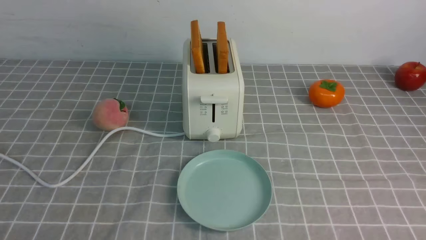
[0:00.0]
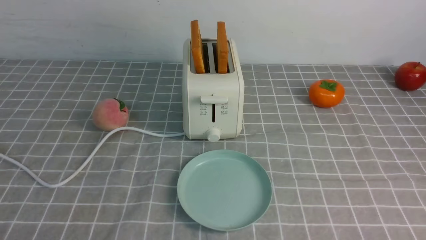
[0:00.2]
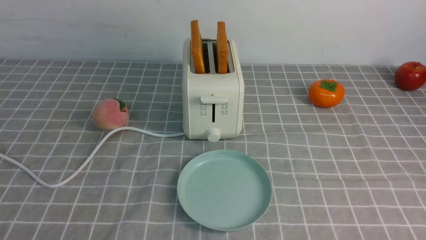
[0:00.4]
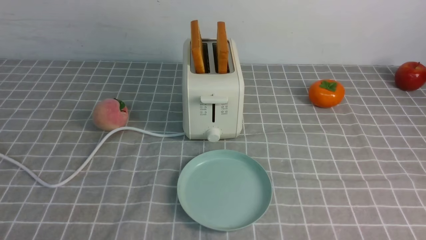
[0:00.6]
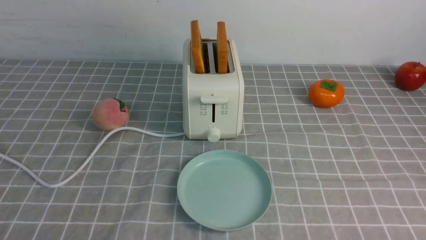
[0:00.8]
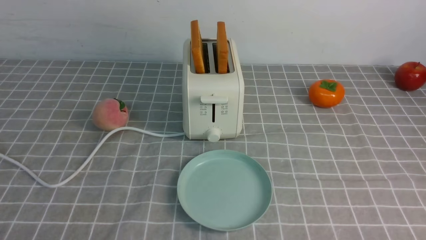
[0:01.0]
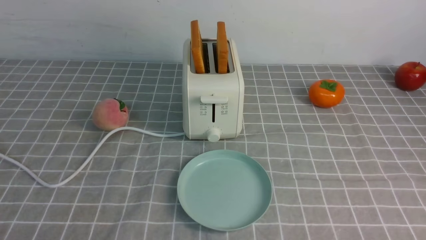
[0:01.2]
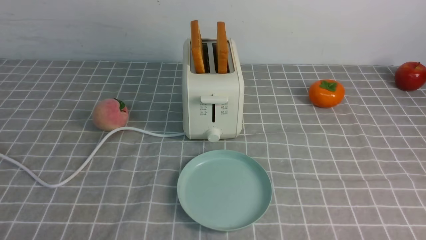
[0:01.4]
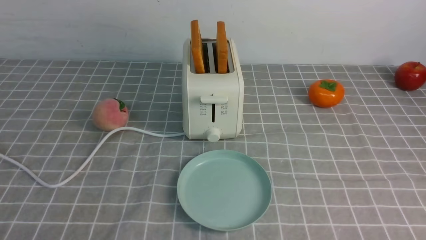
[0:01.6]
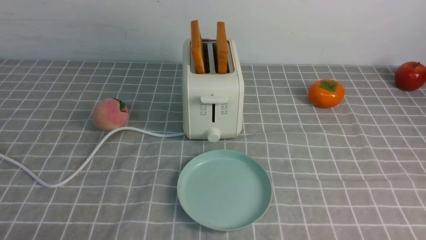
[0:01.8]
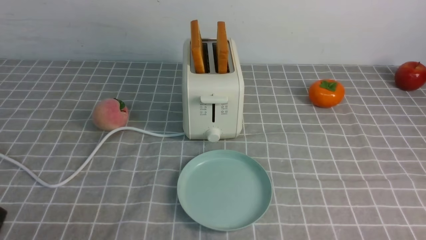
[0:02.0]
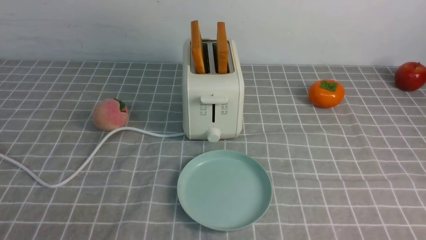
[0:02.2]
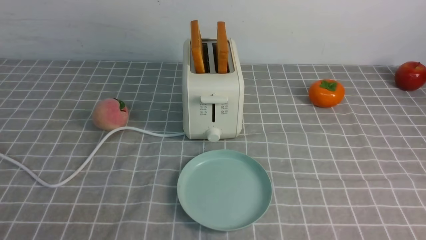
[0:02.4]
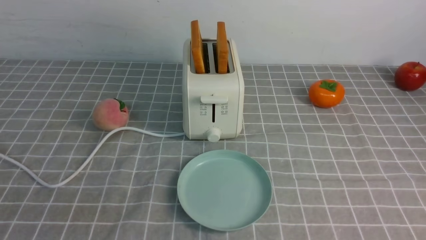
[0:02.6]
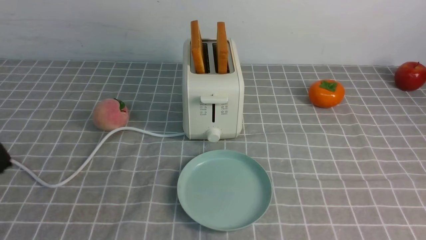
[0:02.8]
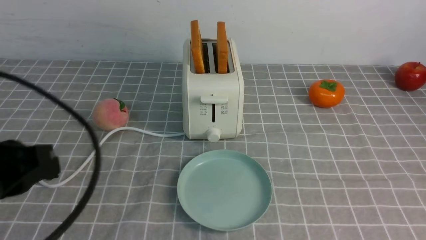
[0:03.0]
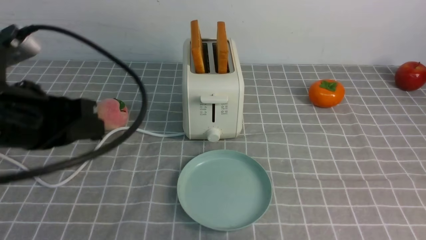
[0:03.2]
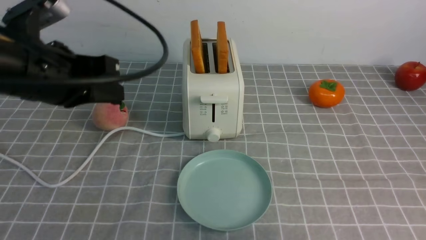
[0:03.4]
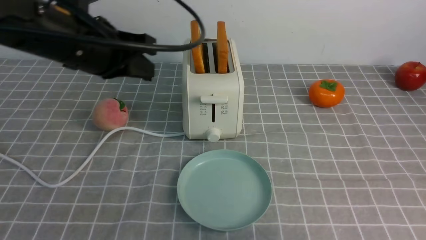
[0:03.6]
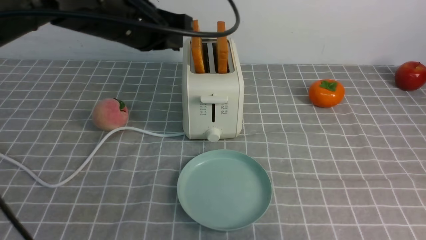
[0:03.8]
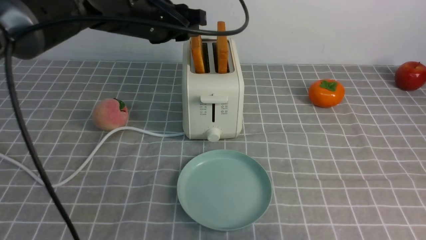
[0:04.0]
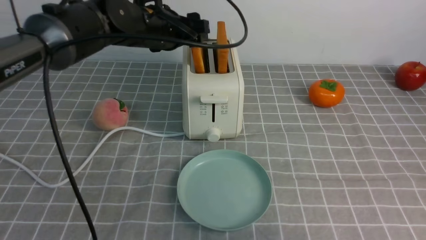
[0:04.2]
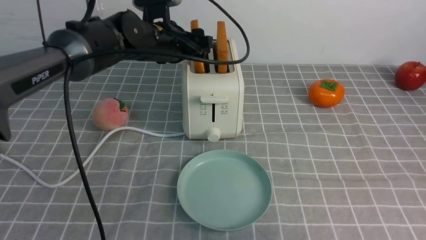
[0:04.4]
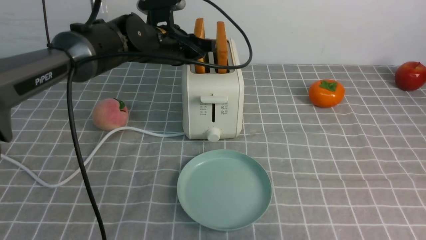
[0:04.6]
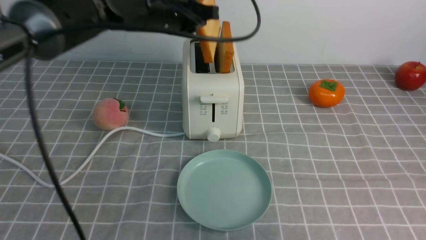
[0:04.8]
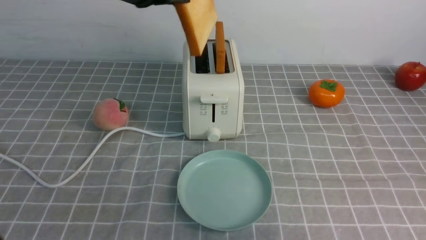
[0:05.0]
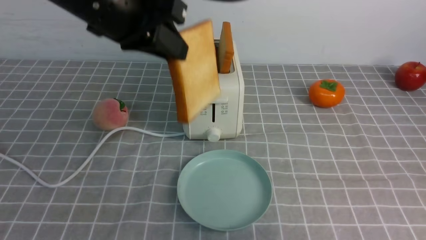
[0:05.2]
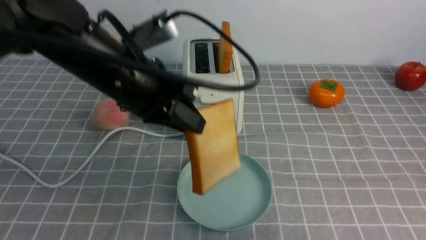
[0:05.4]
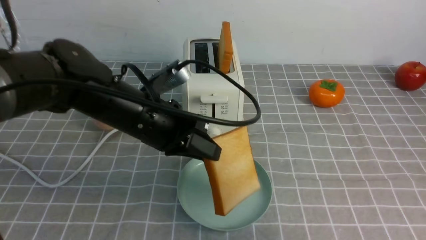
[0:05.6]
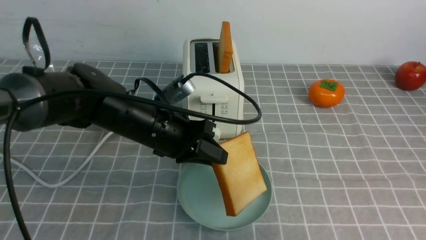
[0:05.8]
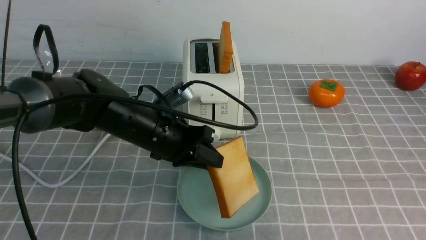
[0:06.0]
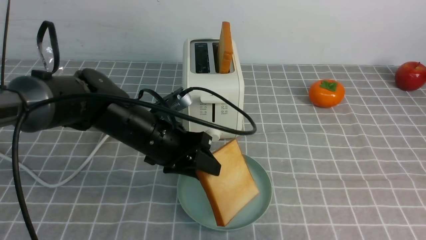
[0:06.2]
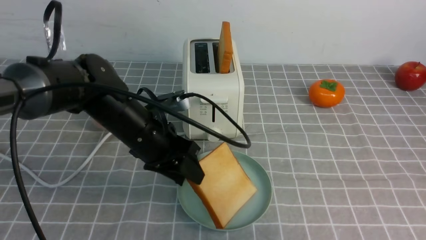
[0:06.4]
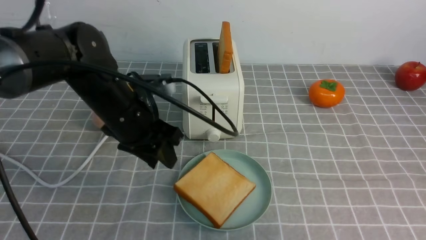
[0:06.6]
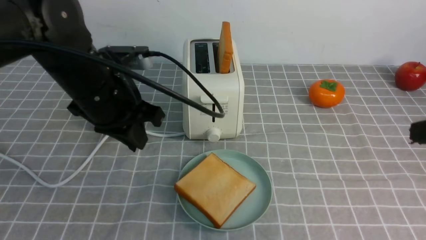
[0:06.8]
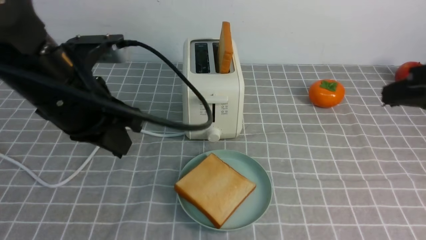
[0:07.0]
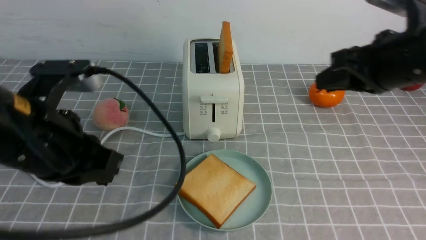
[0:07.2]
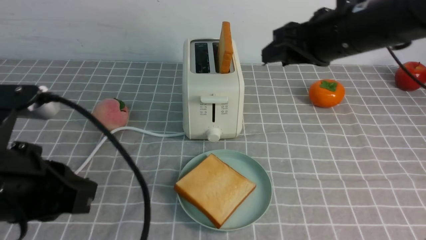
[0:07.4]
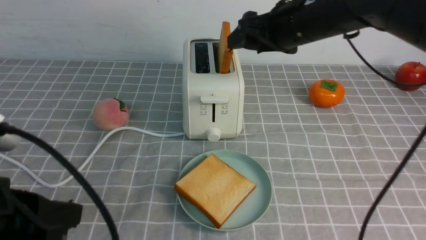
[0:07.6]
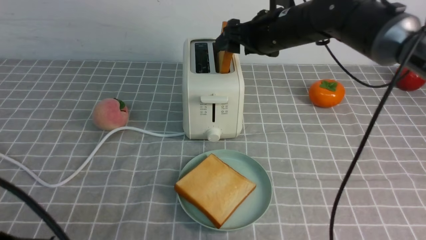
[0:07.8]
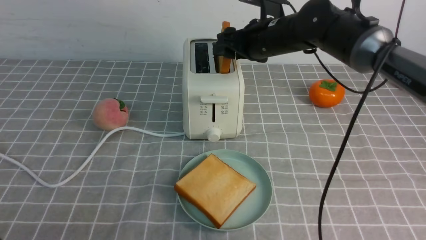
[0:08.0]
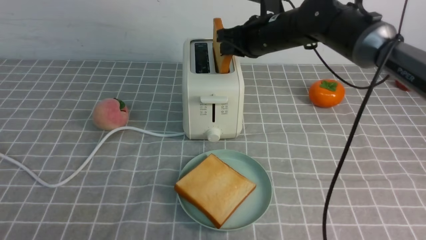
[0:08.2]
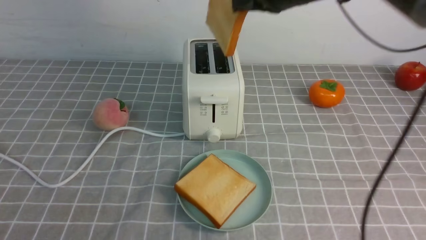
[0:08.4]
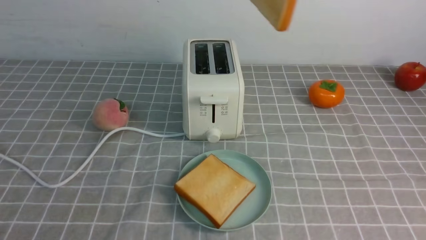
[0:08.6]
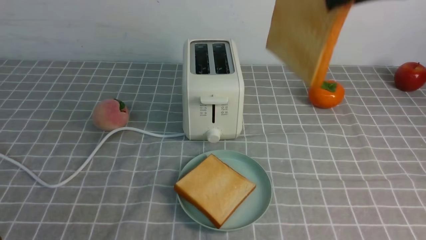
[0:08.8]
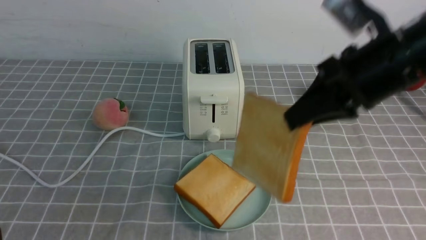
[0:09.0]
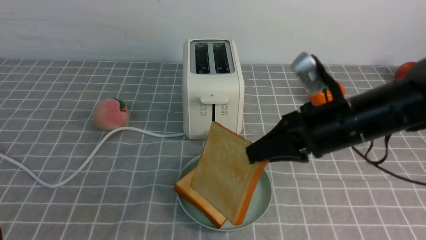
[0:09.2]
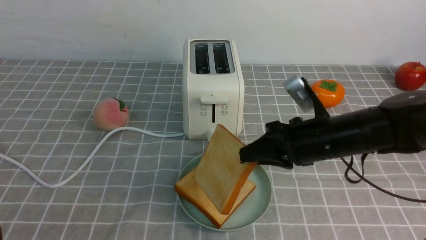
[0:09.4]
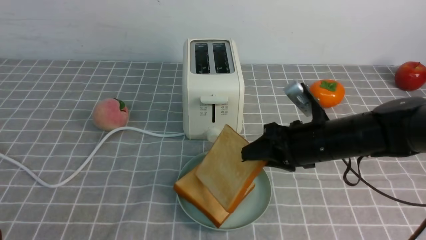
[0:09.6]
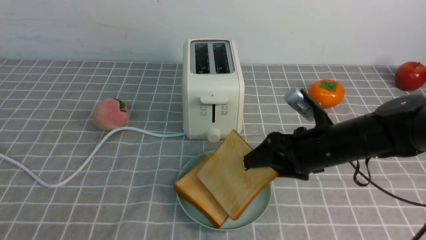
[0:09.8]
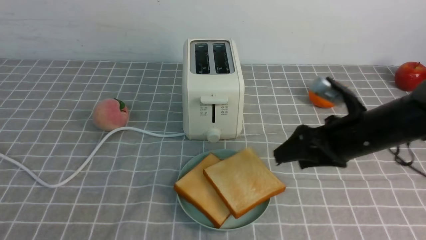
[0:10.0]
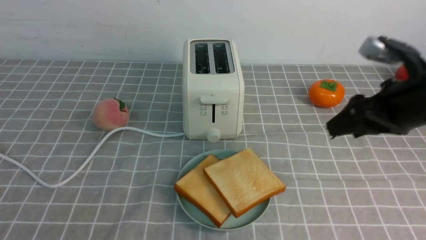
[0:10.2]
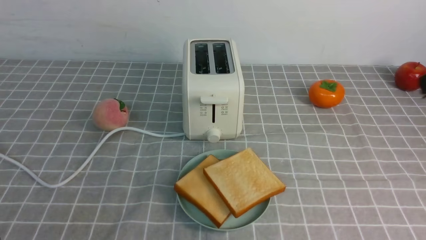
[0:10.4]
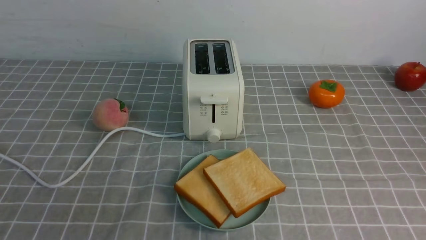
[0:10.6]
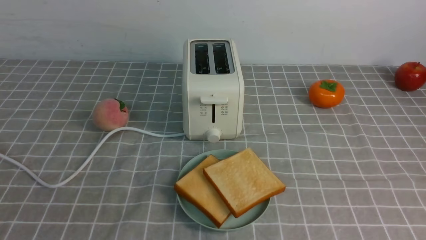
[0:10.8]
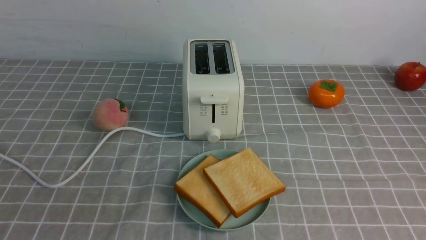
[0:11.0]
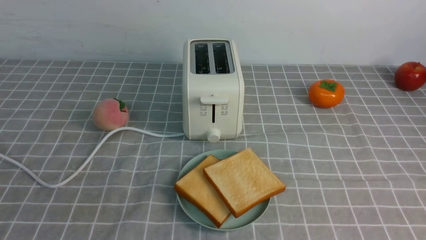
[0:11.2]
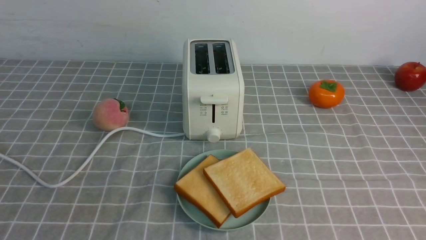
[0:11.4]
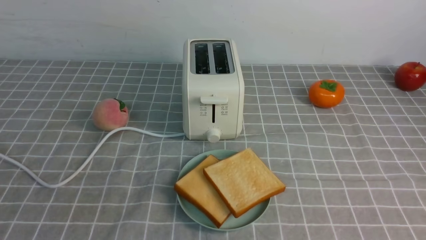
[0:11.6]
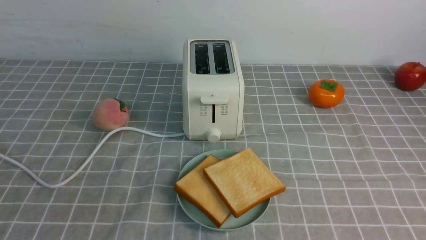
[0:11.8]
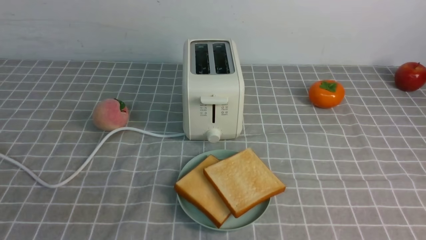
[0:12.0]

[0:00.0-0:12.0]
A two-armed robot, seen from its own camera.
Task of the whole recording: take toasted bread from bread machine on grey coffee table place on plate.
Step, 0:00.0 to 0:04.8: use the left arm to take out a slice of bread.
Step, 0:05.0 to 0:06.8: use the left arm to put a slice of bread into the empty plate.
Step, 0:07.0 to 0:08.4: use the right arm to take out a slice of bread.
Step, 0:08.6 to 0:10.0: use the right arm to put a slice of bread into the plate.
0:00.0 to 0:01.6: Both grippers stay put.
0:01.6 to 0:03.0: The left gripper shifts some 20 cm upward and forward, and closes its fingers.
0:03.0 to 0:04.4: The right gripper travels forward by some 5 cm. Meanwhile the left gripper goes roughly 35 cm forward and to the right, and opens.
0:04.4 to 0:06.0: The left gripper moves backward and downward, some 15 cm, and closes.
0:06.0 to 0:07.6: The right gripper shifts approximately 30 cm forward and to the left, and opens. The left gripper goes approximately 25 cm backward, to the left and upward, and closes up.
0:07.6 to 0:09.0: The left gripper moves backward, about 5 cm, while the right gripper goes some 15 cm backward and to the right, and closes up.
0:09.0 to 0:10.4: The right gripper moves backward and to the right, about 15 cm, reaches about 15 cm downward, then returns, and opens and closes again.

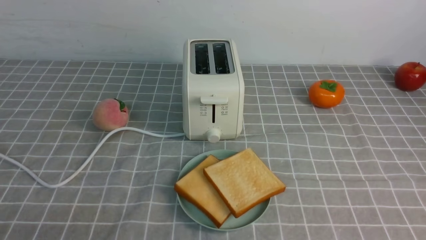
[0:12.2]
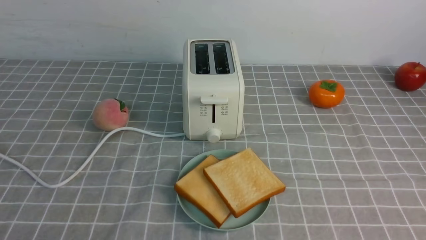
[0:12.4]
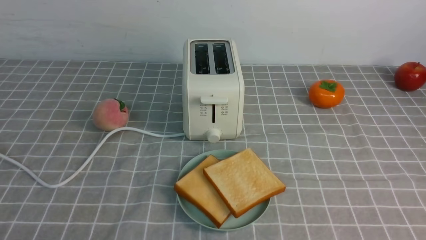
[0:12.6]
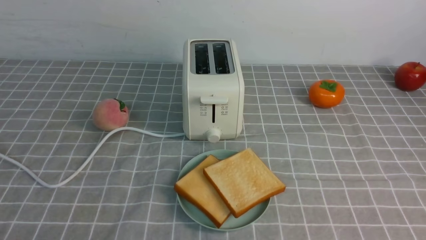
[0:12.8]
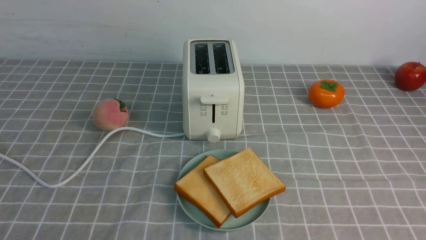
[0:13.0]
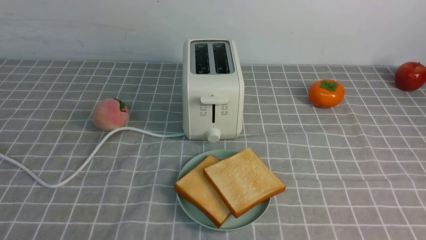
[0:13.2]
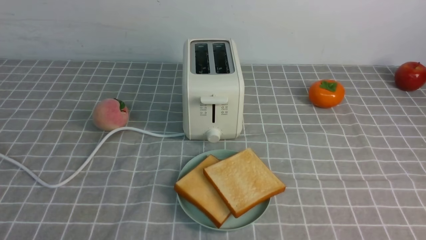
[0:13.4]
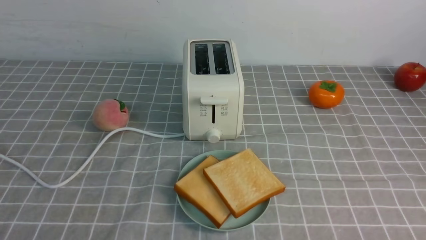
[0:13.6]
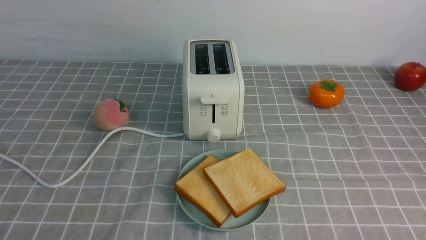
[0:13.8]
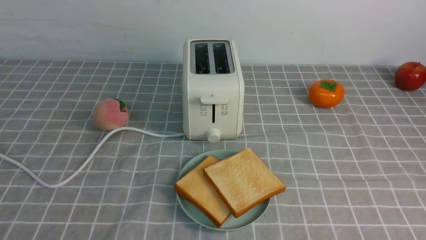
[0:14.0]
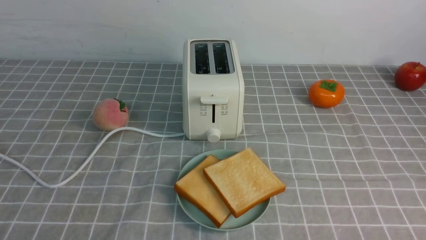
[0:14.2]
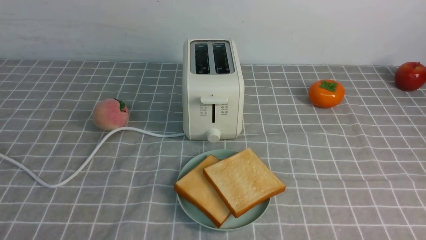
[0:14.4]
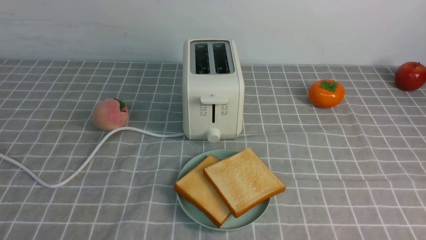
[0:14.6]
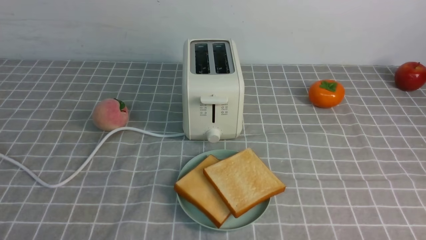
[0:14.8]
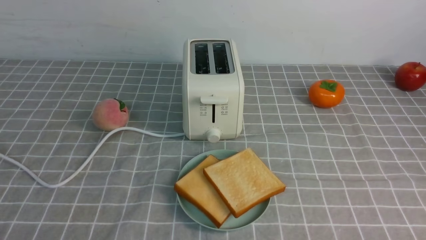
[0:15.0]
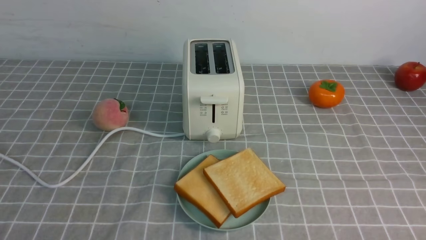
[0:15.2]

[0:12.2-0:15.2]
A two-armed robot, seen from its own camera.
Task of the whole recording: take toasted bread from bread machine on grey coffee table place on plate.
0:13.8 to 0:15.2: Both grippers stay put.
